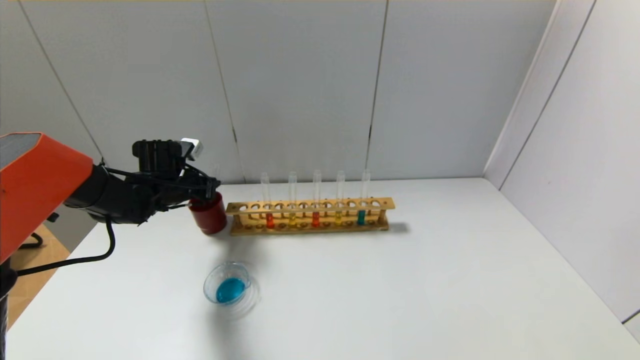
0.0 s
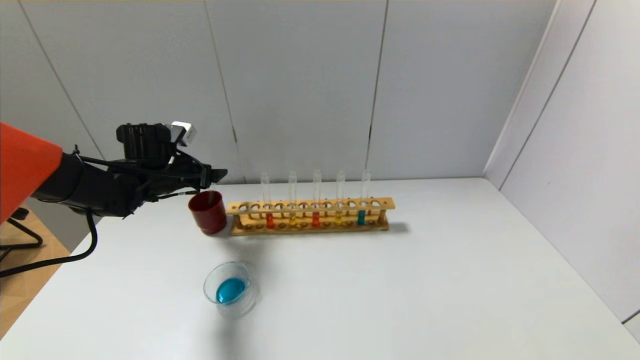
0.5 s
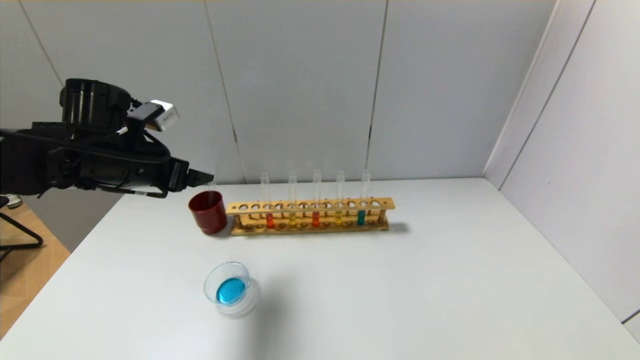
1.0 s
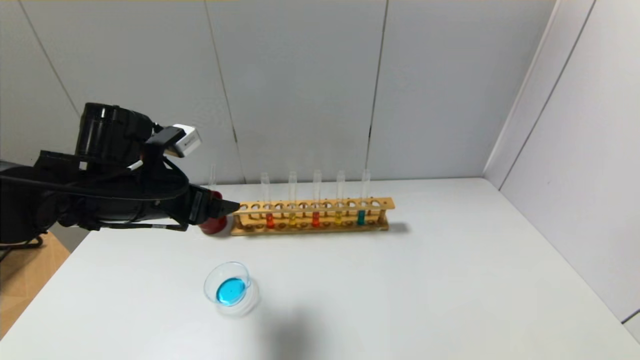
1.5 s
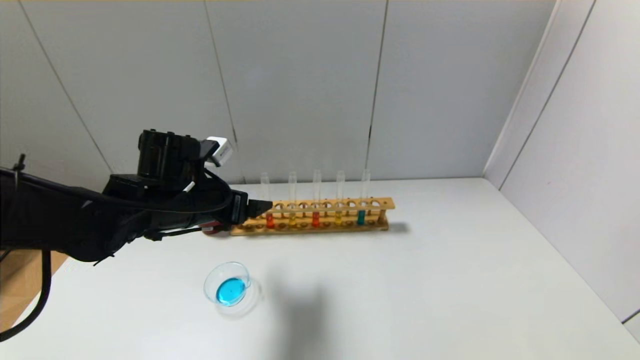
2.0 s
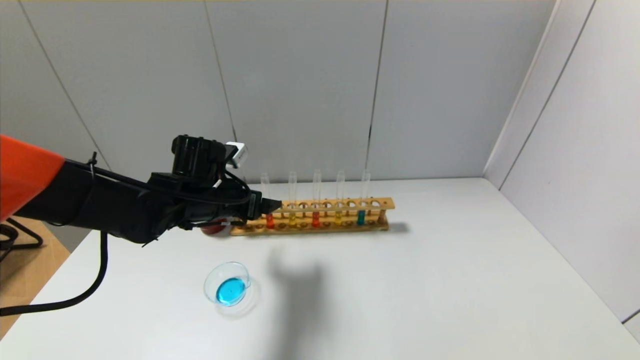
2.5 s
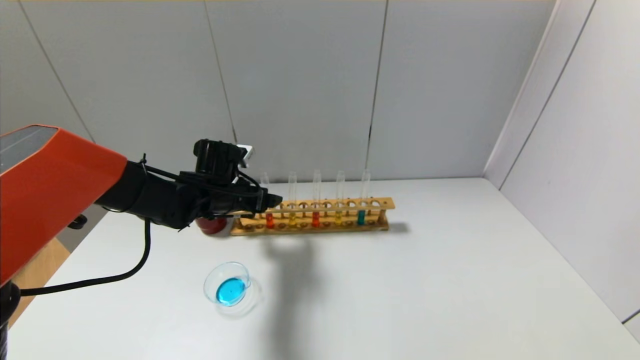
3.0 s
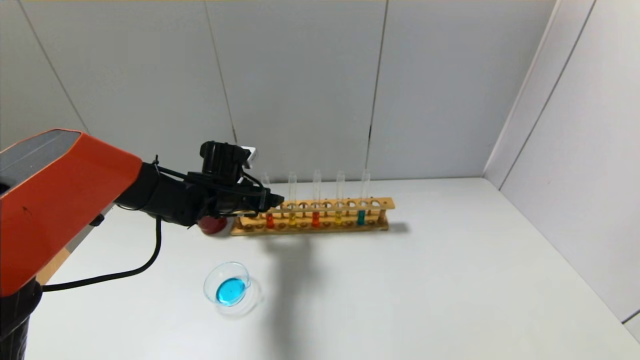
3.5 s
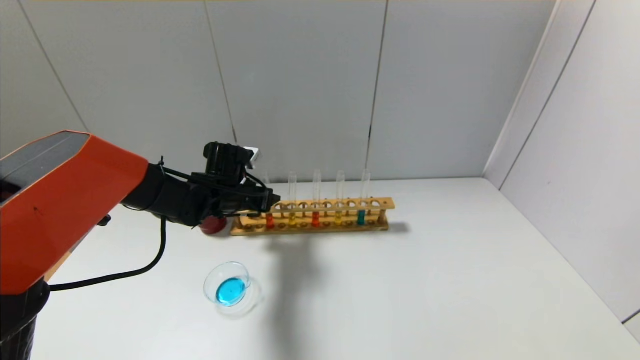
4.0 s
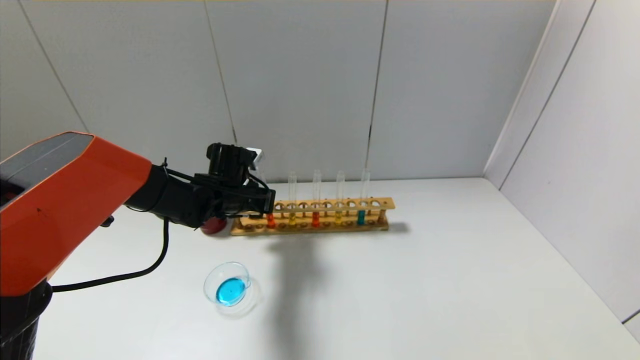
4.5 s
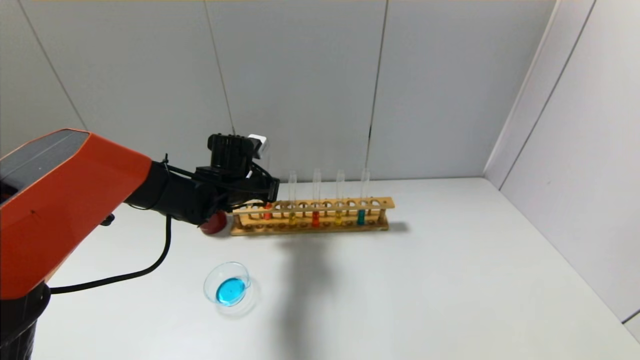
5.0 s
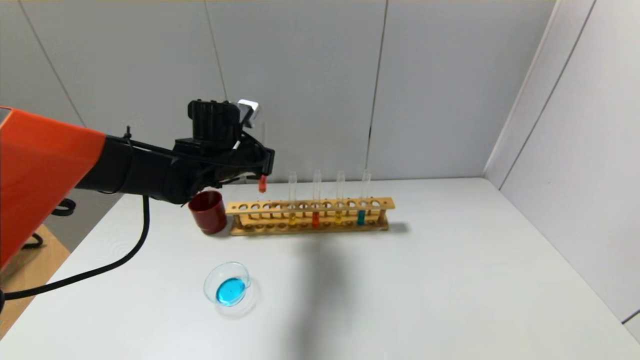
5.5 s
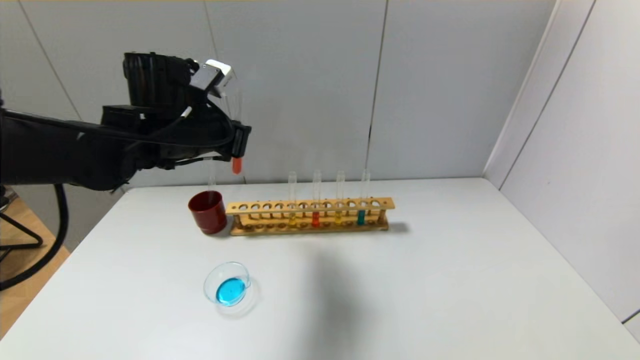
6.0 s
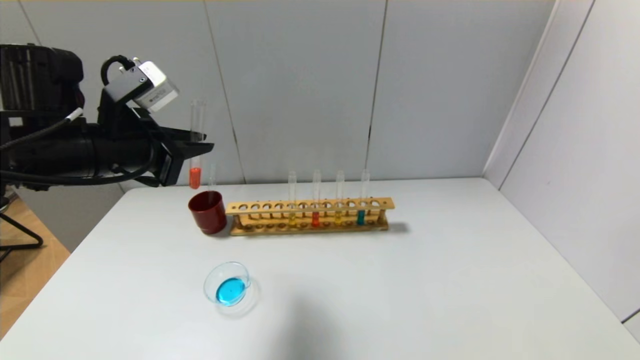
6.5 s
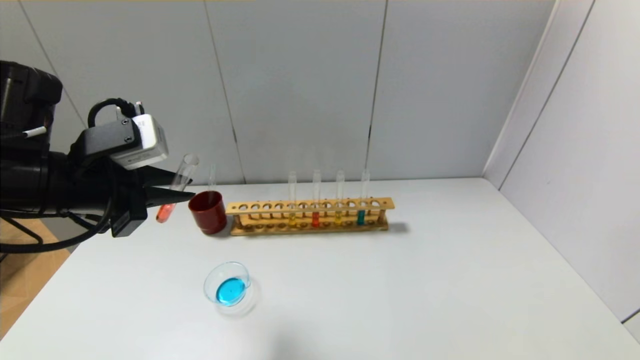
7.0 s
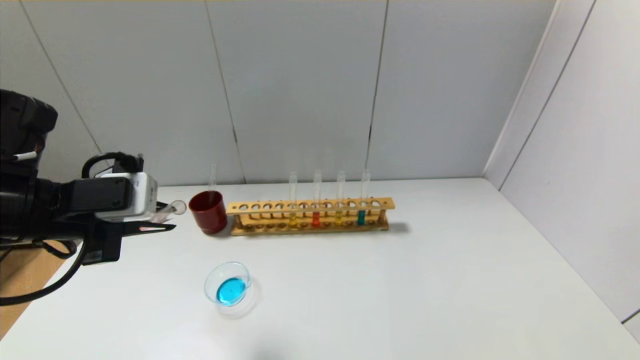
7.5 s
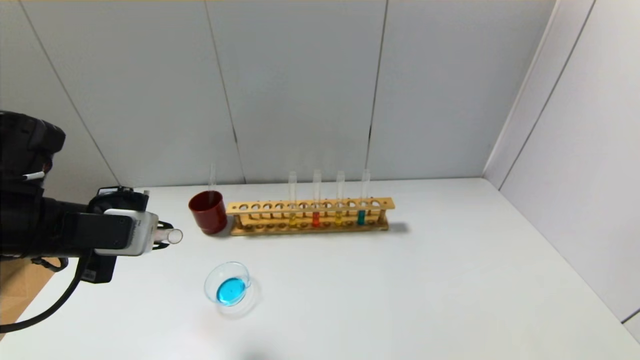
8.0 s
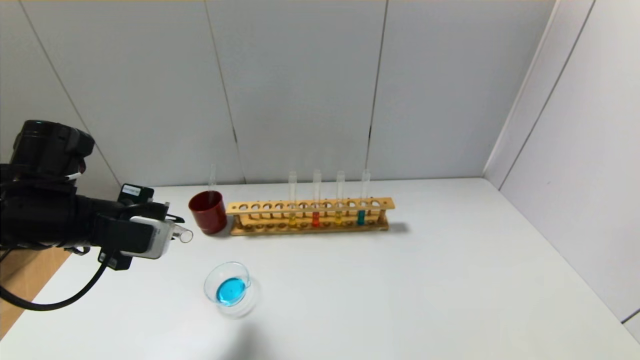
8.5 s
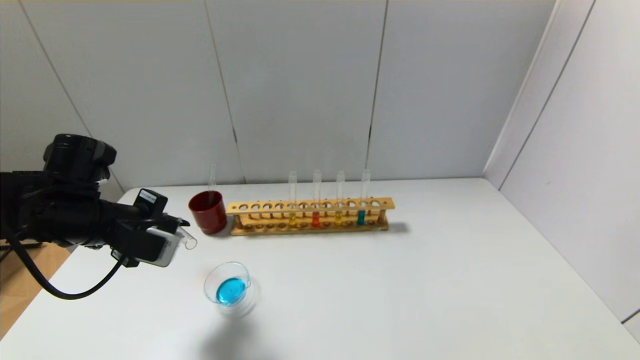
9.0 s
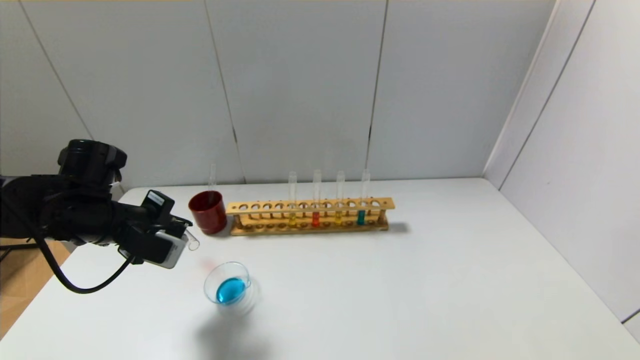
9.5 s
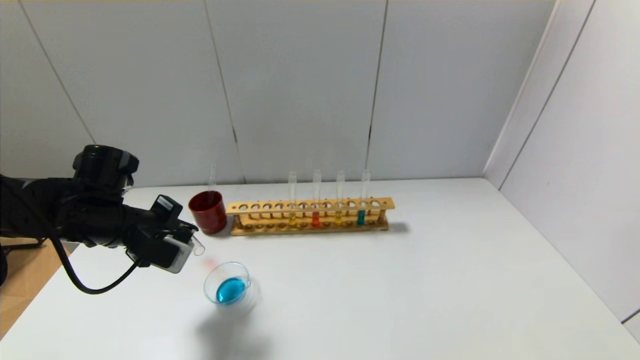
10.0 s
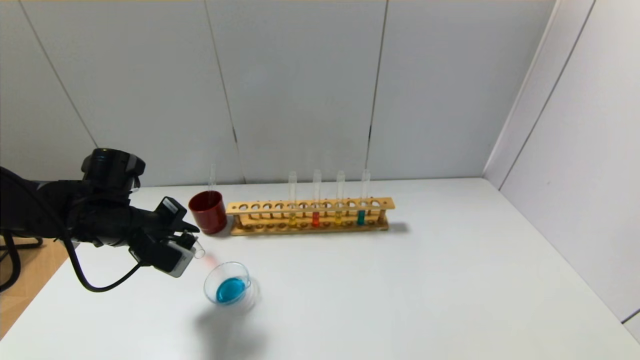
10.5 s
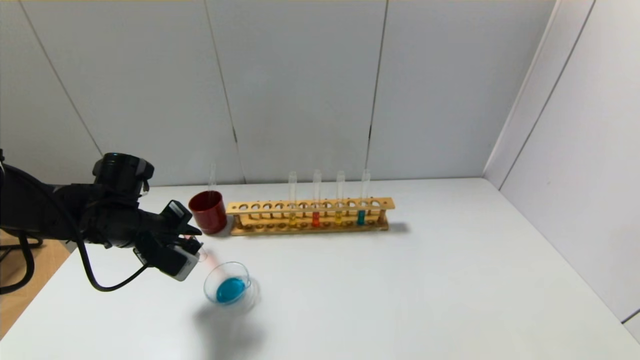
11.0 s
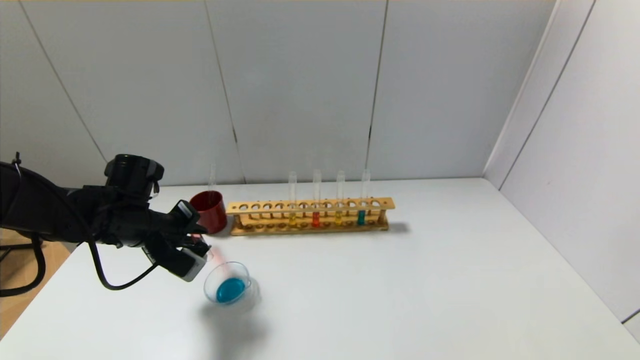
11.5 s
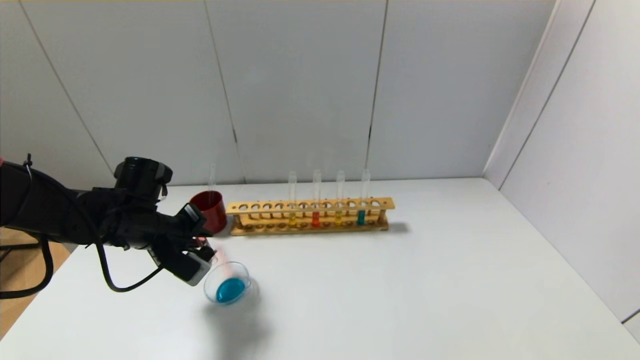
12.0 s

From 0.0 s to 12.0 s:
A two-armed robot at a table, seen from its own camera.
Step, from 0.5 s to 4.5 s: Grasp the red reagent with the left gripper.
From 0.0 s to 2.0 s: The left gripper goes roughly 15 cm backward, to the right and upward, and opens its fingers.
From 2.0 s to 4.0 s: The left gripper shifts some 10 cm forward and downward, and closes up.
From 4.0 s to 6.0 s: The left gripper moves upward and backward, some 15 cm, and closes.
From 6.0 s to 8.0 s: The left gripper moves backward and to the left, approximately 15 cm.
From 8.0 s to 10.0 s: The left gripper is displaced forward and downward by roughly 10 cm.
From 10.0 s to 12.0 s: The grippers move only a little.

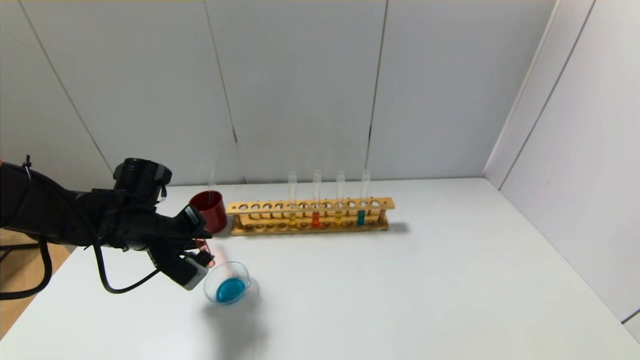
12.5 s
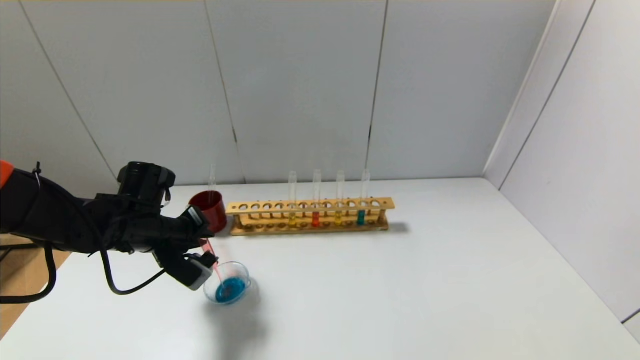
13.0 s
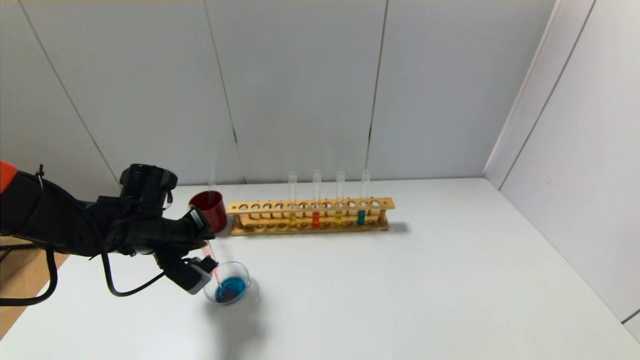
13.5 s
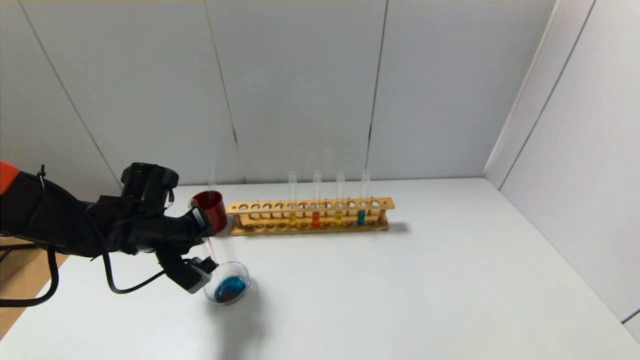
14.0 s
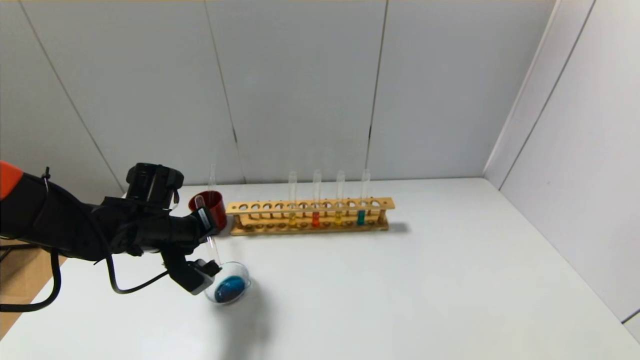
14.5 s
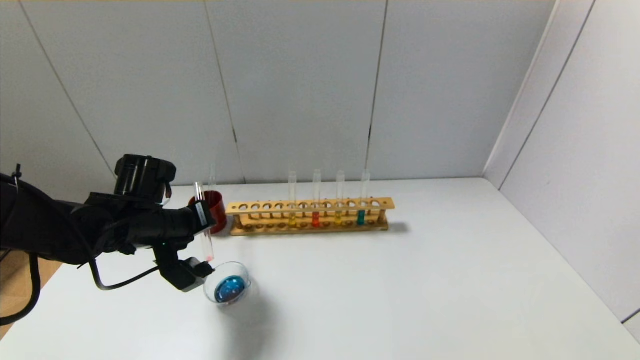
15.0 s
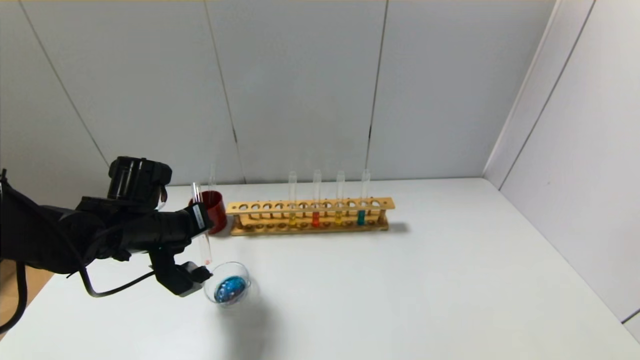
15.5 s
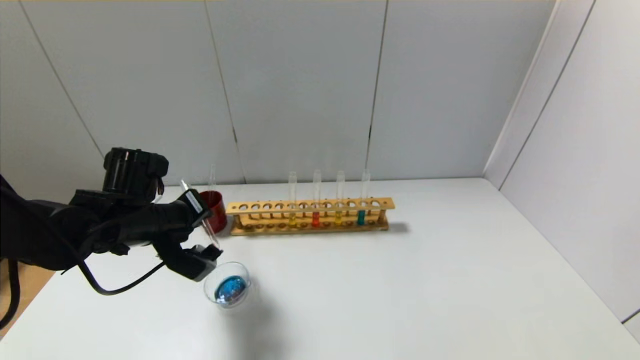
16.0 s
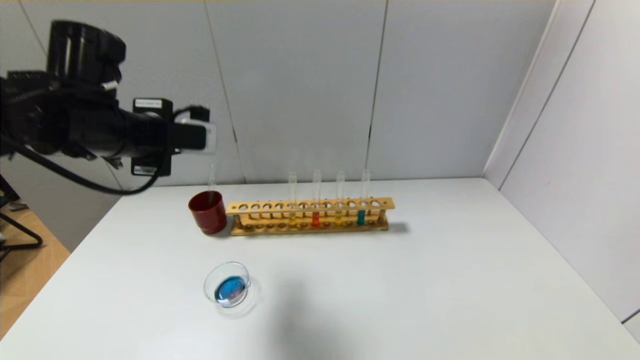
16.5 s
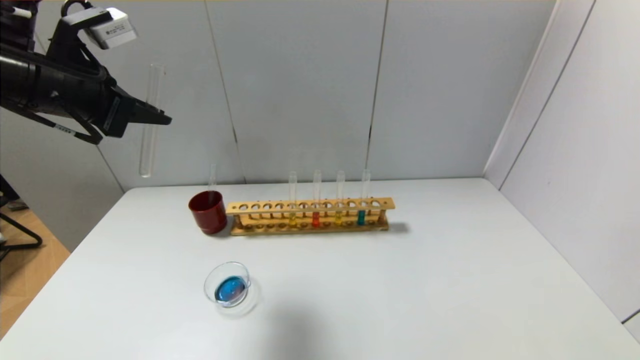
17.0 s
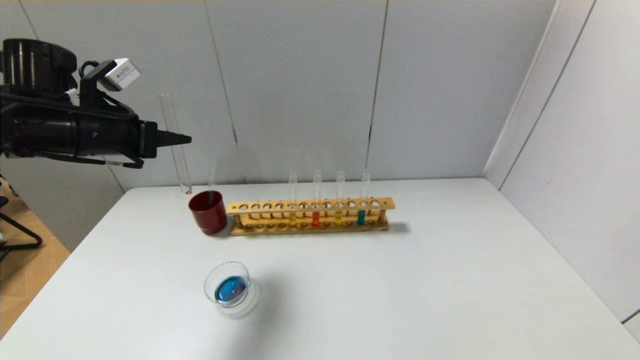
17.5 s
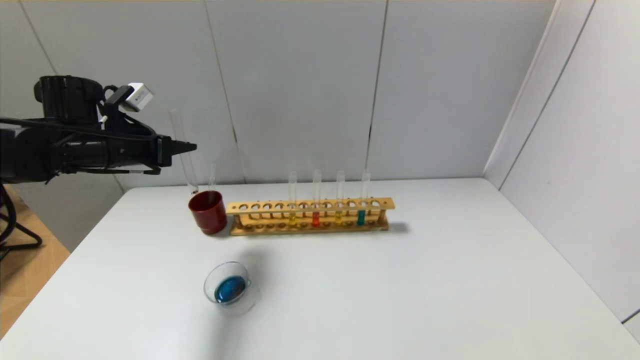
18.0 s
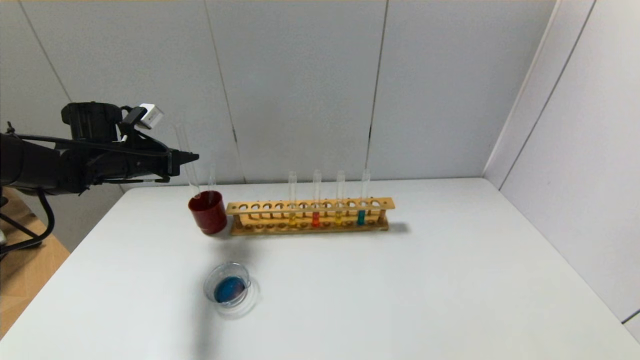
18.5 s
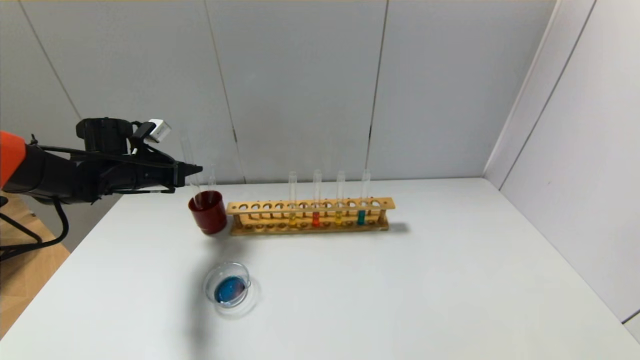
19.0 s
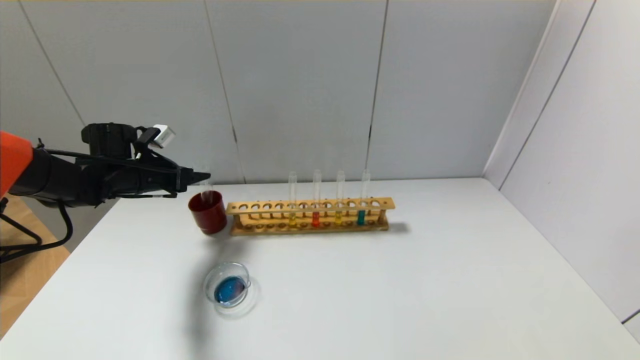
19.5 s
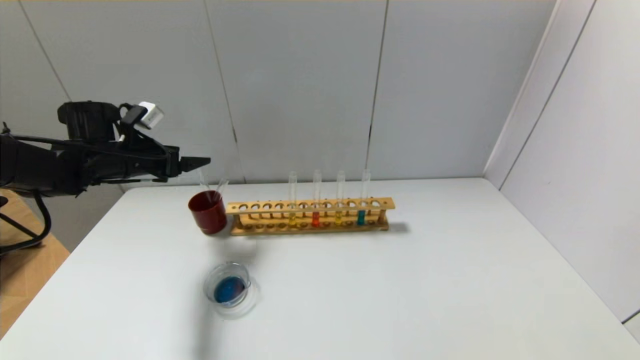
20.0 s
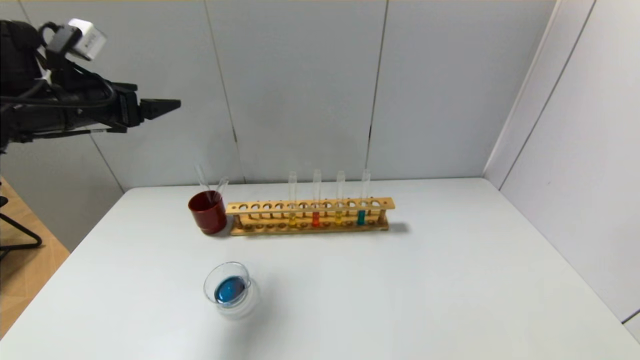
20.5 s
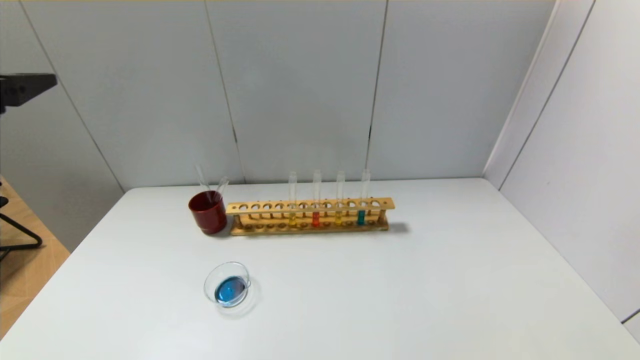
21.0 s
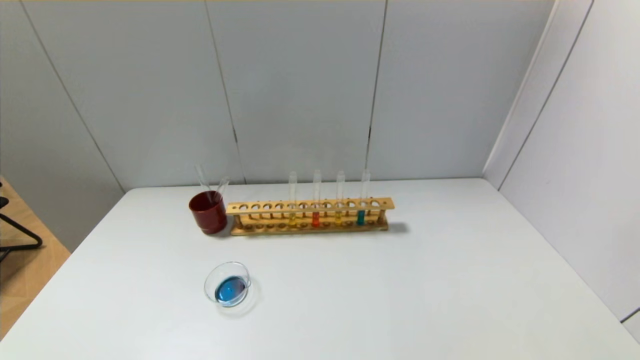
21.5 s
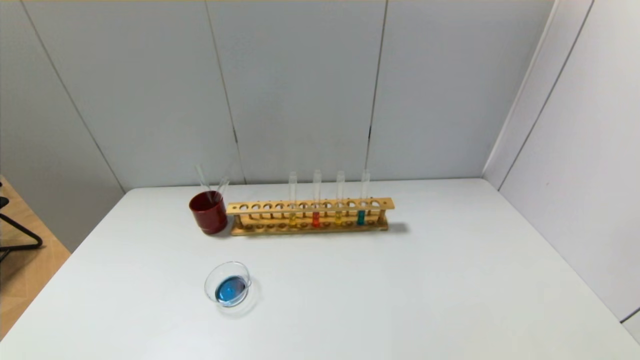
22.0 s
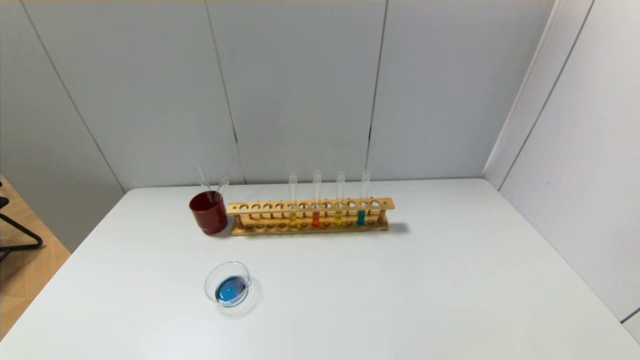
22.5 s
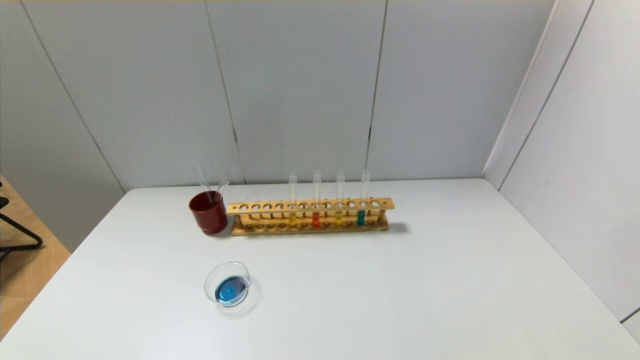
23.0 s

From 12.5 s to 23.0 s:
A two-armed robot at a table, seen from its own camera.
Step, from 12.5 s to 15.5 s: Pour the red reagent into the graduated cylinder with the left gripper.
Step, from 16.0 s to 19.5 s: Place the test tube into the brown cup with the left gripper.
From 12.5 s to 14.5 s: The grippers move only a little.
From 14.5 s to 16.5 s: The left gripper travels upward by approximately 15 cm.
From 16.5 s to 19.0 s: The left gripper travels downward, forward and to the left by about 20 cm.
From 19.0 s to 21.0 s: The left gripper is displaced backward and upward by about 35 cm, and opens its fingers.
From 21.0 s to 23.0 s: The left gripper goes approximately 30 cm downward and backward.
